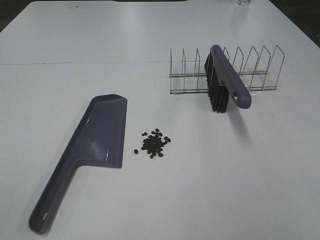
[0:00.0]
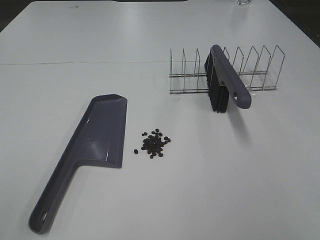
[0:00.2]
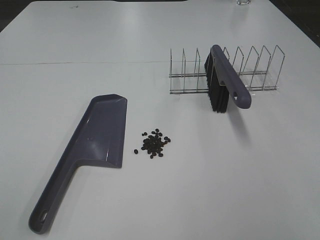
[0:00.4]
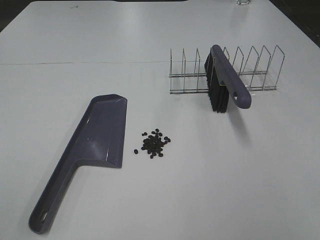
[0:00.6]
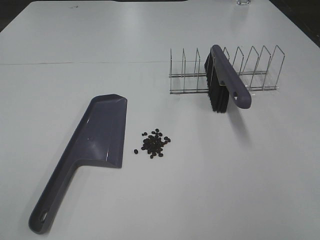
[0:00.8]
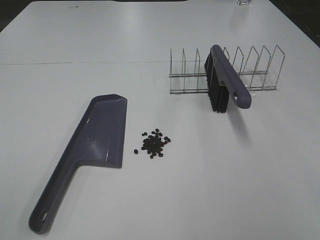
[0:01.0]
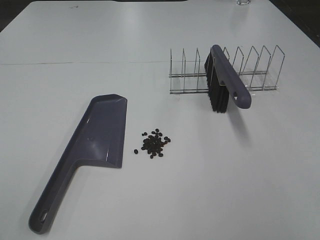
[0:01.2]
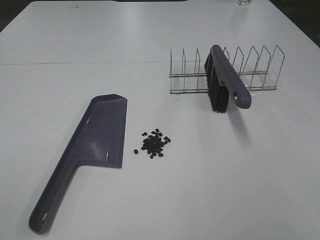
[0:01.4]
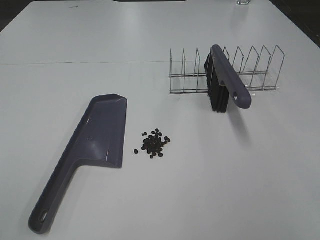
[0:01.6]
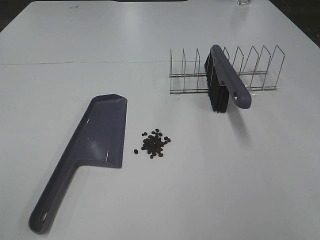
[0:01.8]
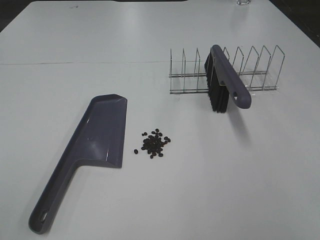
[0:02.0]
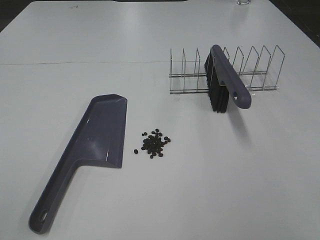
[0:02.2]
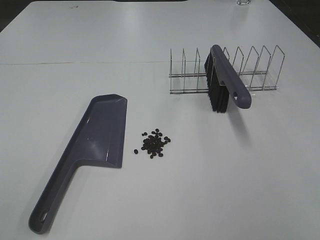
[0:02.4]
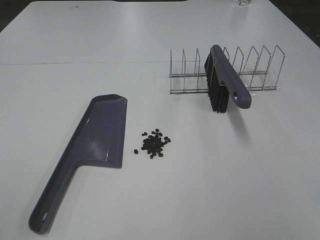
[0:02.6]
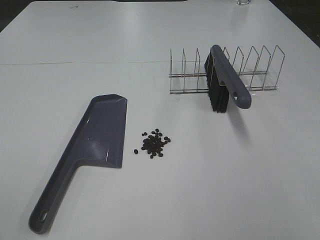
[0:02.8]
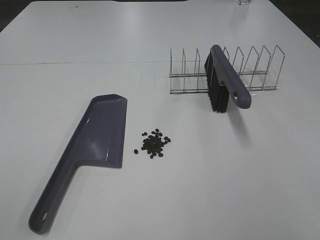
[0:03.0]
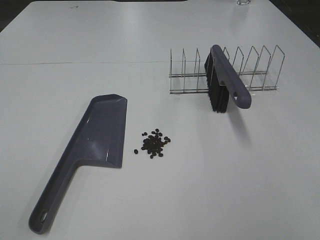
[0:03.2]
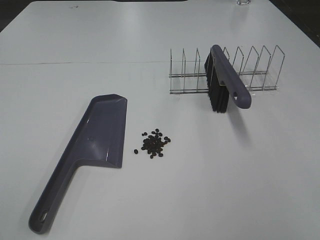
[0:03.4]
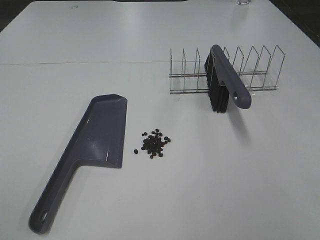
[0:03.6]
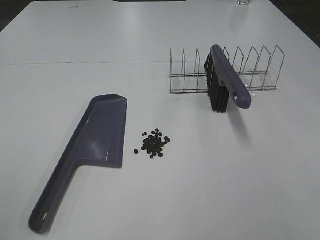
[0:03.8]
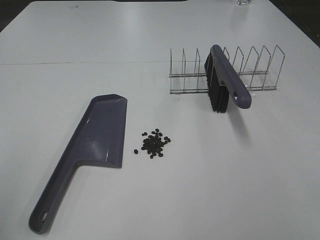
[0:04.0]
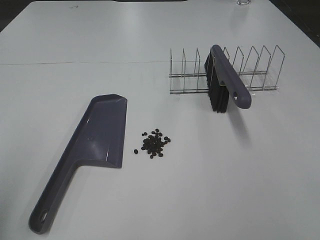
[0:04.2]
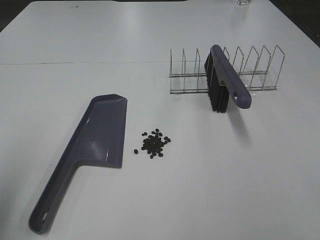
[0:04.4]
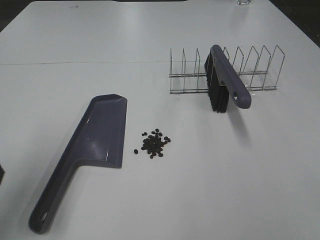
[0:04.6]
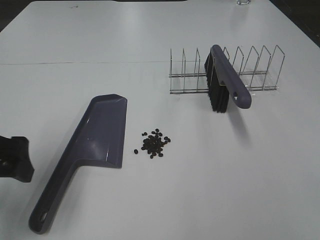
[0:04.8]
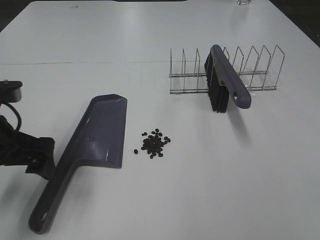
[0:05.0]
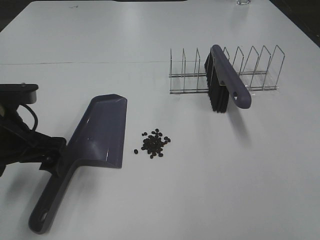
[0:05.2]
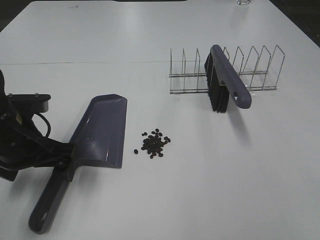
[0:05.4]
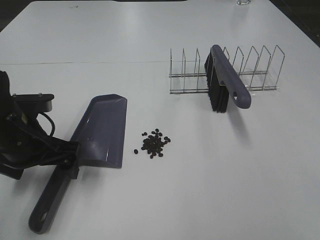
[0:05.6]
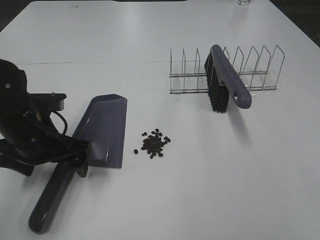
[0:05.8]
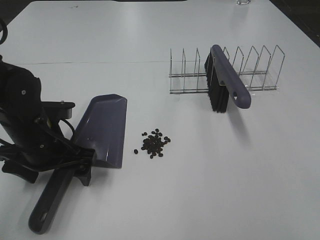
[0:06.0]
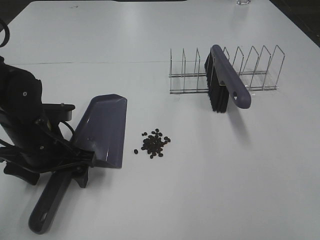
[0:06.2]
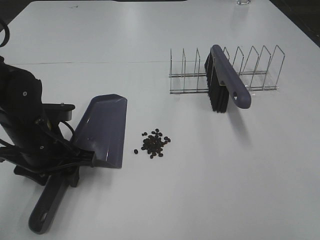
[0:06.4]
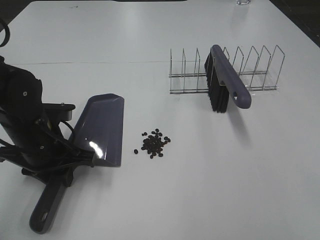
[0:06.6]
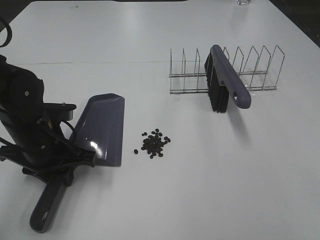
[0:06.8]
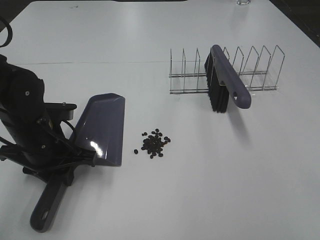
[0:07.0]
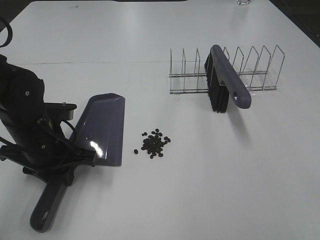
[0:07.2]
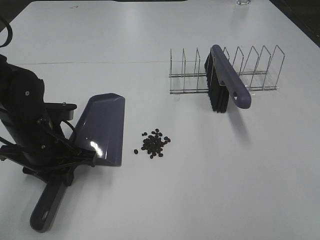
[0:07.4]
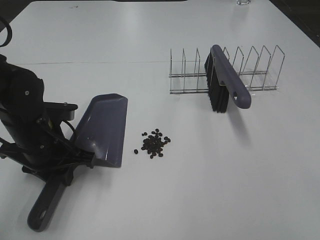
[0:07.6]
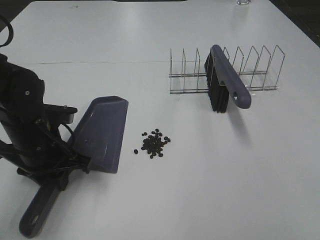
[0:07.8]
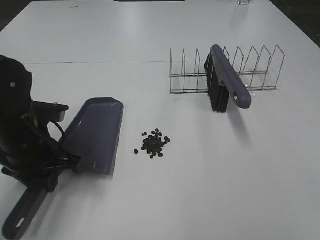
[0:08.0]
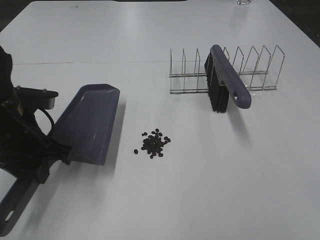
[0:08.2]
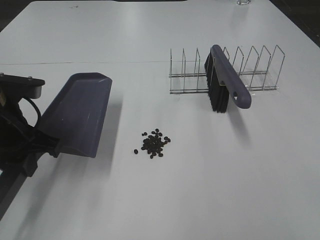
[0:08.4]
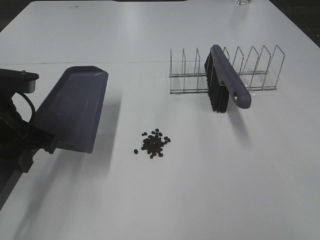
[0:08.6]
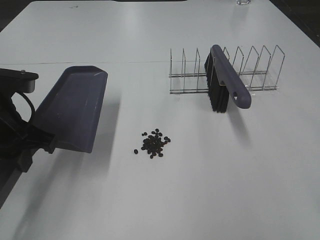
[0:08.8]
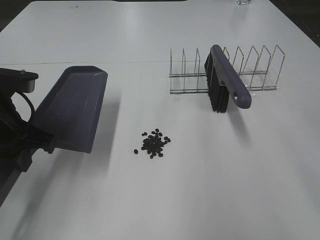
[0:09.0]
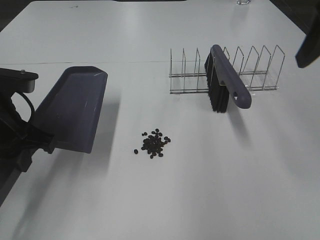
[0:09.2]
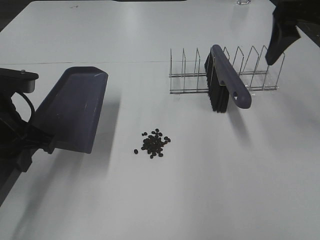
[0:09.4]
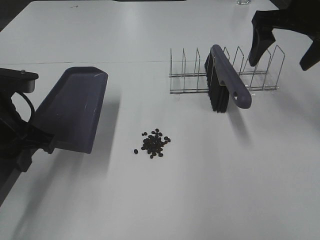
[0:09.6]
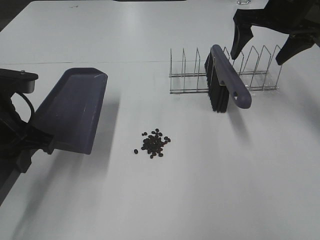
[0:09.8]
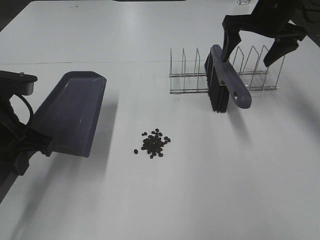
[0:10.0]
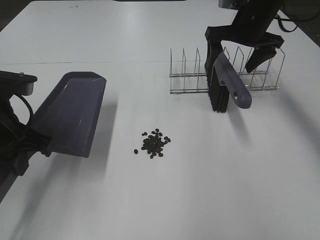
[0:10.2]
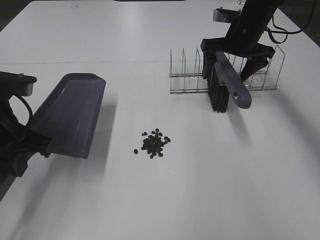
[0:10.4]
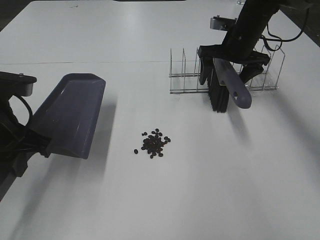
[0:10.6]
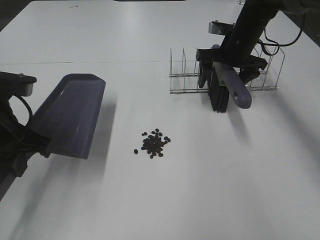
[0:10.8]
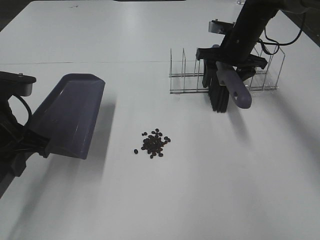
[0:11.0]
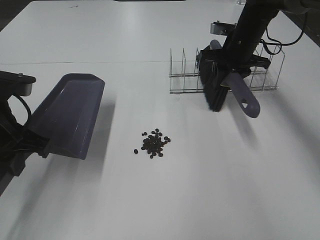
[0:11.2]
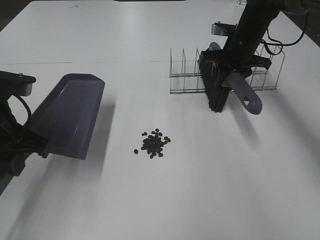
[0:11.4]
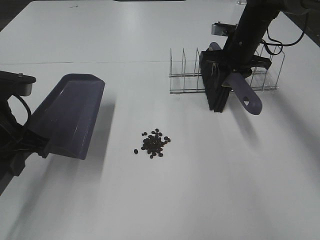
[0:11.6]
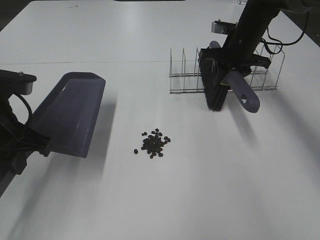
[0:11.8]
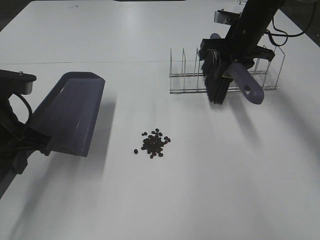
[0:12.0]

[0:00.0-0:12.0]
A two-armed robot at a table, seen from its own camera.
Task of the whole recording: Sweep Coffee Bean.
Step, 0:00.0 to 0:06.6: Left hand: grab the dustpan.
Step, 0:08.6 to 0:11.2: Right hand:grab the broom.
0:00.0 to 0:03.0: The two grippers keep their place.
0:03.0 to 0:04.4: The left gripper travels forward by about 15 cm.
0:04.4 to 0:06.0: The left gripper goes about 25 cm downward, forward and to the right.
0:06.0 to 0:07.6: The left gripper closes its fingers.
0:07.6 to 0:09.0: The right gripper heads forward and upward, covering roughly 20 cm. Meanwhile the left gripper shifts about 10 cm upward.
0:09.0 to 0:10.4: The right gripper heads forward and downward, covering roughly 35 cm.
0:10.4 to 0:12.0: The right gripper closes its fingers.

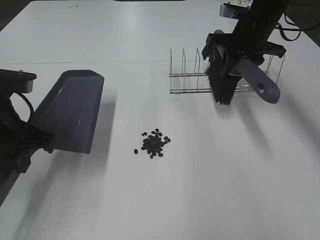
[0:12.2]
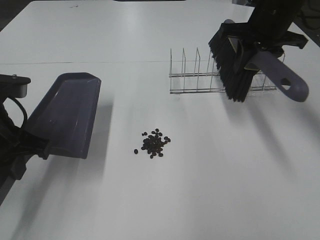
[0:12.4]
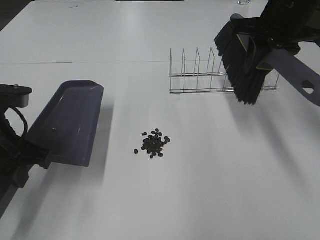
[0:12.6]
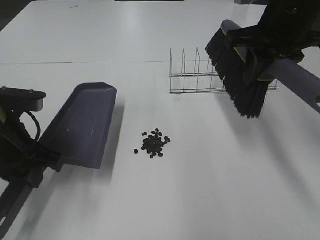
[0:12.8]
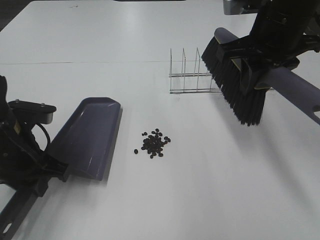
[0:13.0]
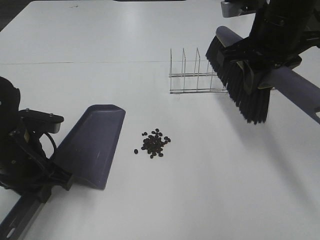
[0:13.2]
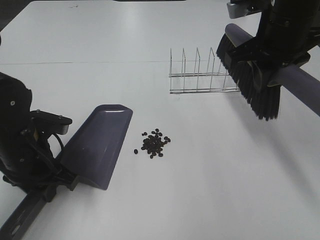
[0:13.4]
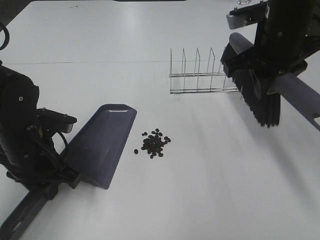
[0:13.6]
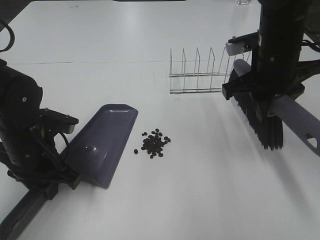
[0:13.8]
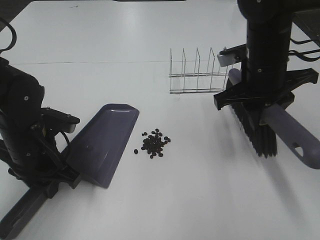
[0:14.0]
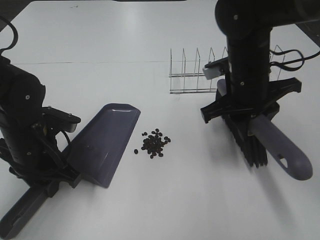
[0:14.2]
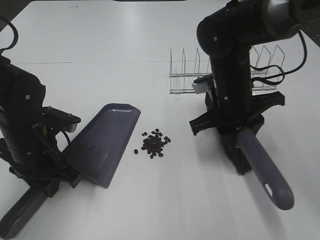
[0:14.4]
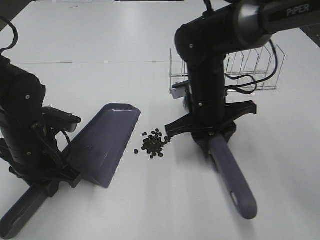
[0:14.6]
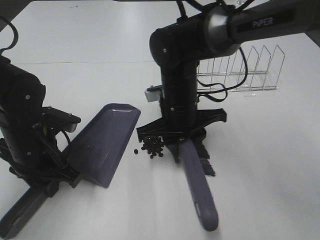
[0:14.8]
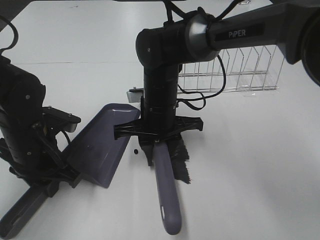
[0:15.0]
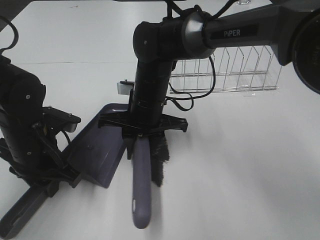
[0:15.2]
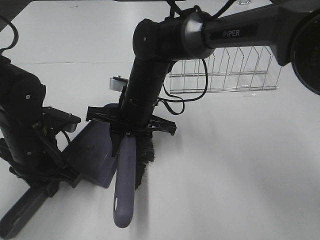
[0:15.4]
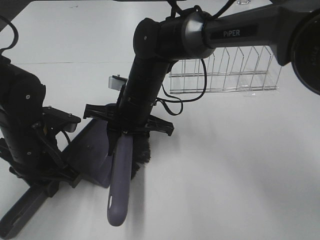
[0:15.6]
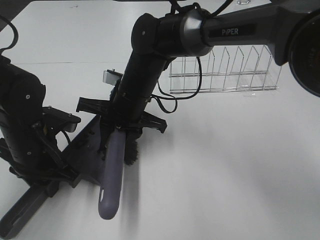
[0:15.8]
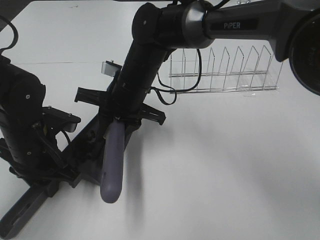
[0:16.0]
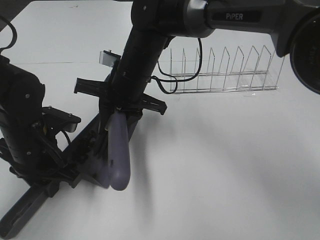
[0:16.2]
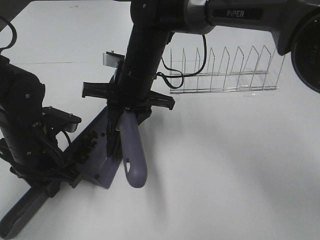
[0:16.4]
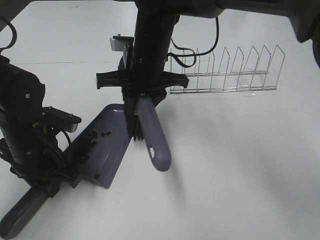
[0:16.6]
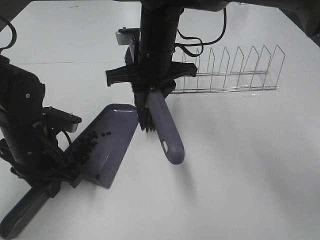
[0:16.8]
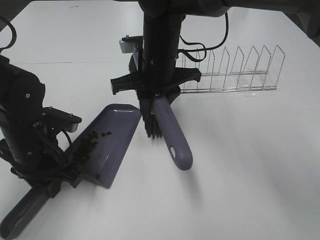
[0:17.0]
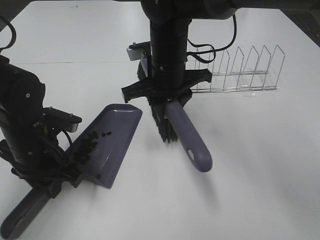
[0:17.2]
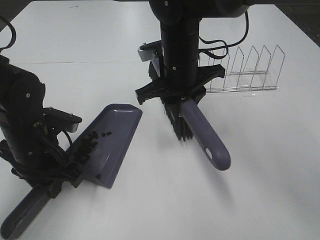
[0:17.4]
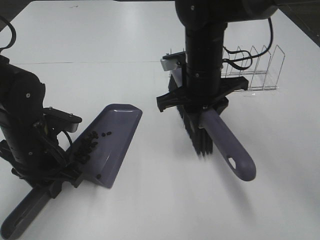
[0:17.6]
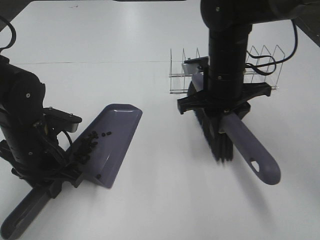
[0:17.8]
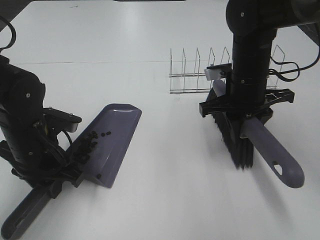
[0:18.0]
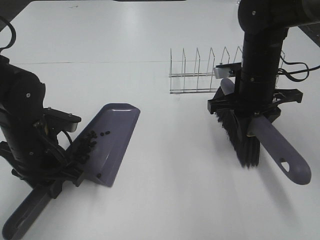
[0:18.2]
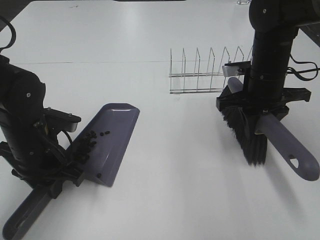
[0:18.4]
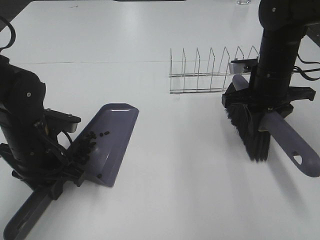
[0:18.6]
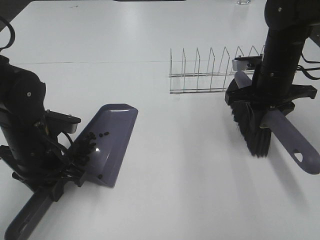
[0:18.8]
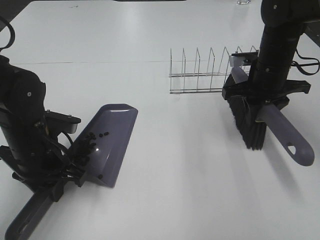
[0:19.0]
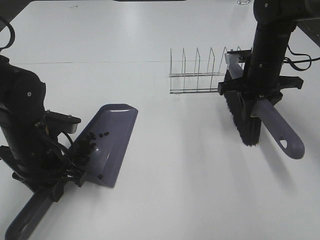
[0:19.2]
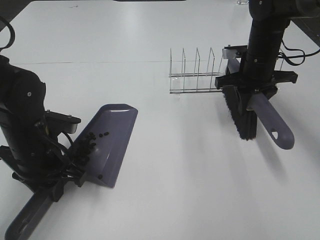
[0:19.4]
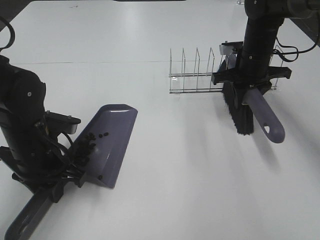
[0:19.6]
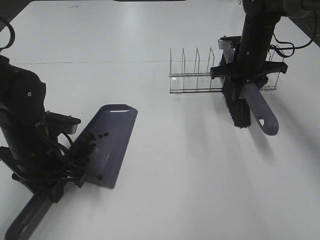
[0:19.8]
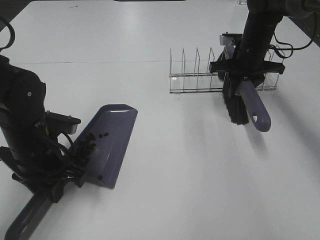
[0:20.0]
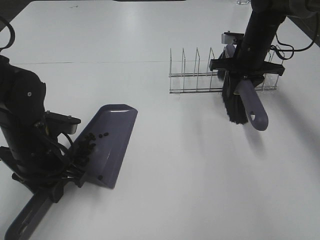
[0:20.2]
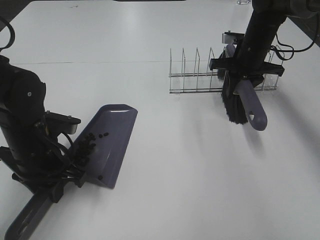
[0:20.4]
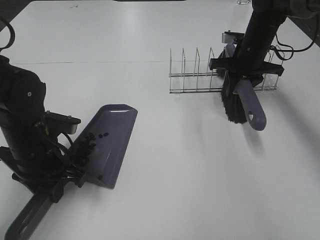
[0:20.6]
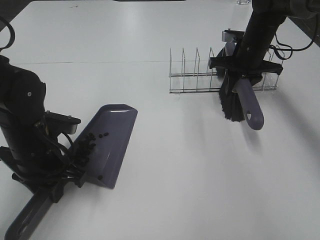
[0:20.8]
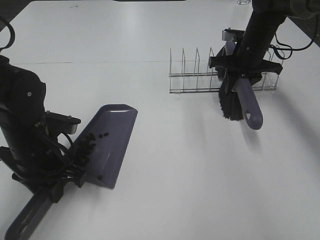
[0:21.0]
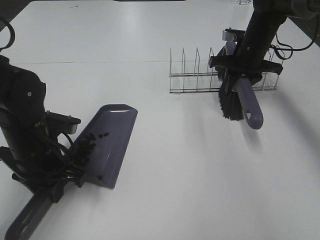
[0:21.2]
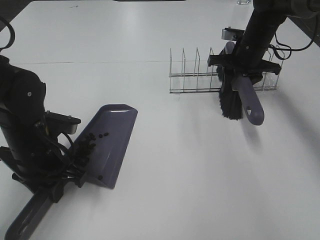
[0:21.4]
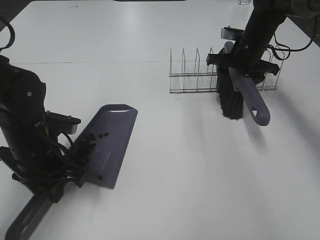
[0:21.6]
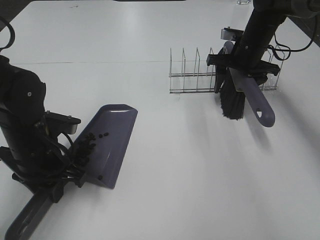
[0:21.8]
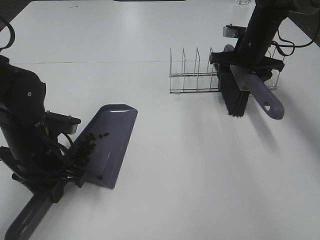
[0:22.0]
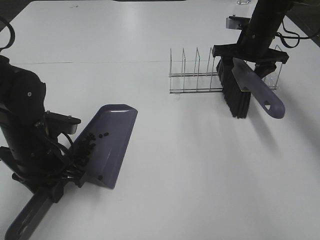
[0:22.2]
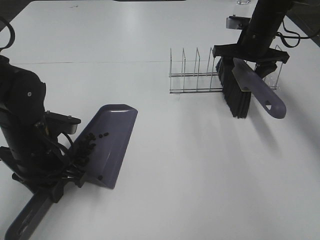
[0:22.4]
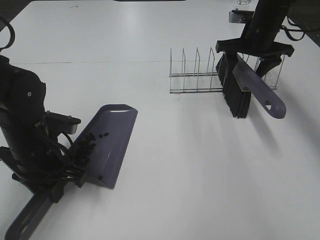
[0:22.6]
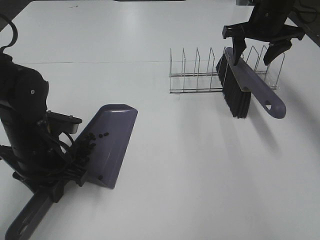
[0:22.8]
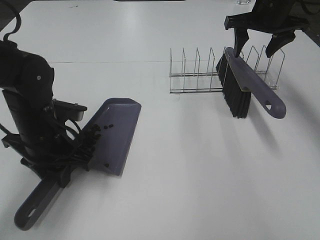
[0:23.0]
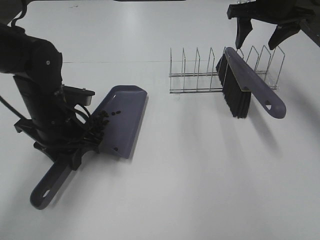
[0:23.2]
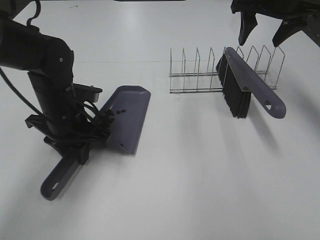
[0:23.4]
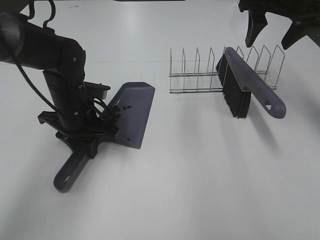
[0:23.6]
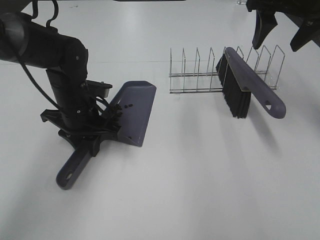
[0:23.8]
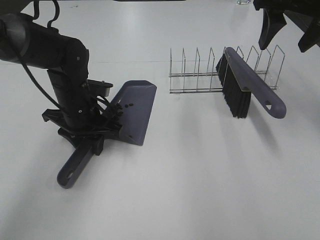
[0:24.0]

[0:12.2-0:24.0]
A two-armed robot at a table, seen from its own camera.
Task of the whole recording: Sweep Coffee Bean.
Step, 0:12.2 to 0:14.4: Left hand: move the dustpan to the left side of the coffee beans.
Step, 0:12.2 to 0:16.4: Right hand:sweep the coffee beans into the dustpan.
Step, 0:16.6 to 0:22.2: Right hand:place the broom on the rack.
Step, 0:22.4 to 0:24.0: Left hand:place the dustpan on the table.
0:12.2 to 0:13.6: The right gripper travels backward by about 10 cm, while the left gripper goes roughly 10 cm downward.
0:13.6 to 0:15.2: The right gripper is displaced to the left and downward by roughly 25 cm.
0:15.2 to 0:16.6: The right gripper is displaced upward by roughly 5 cm.
0:16.6 to 0:18.2: The right gripper heads to the right, covering roughly 20 cm.
0:18.2 to 0:19.6: The right gripper is displaced forward by some 10 cm.
0:19.6 to 0:21.0: The grippers move only a little.
0:21.0 to 0:22.6: The right gripper heads upward, covering about 5 cm, and opens.
0:22.6 to 0:24.0: The right gripper heads upward and backward, covering roughly 15 cm. The left gripper moves forward, about 10 cm.
